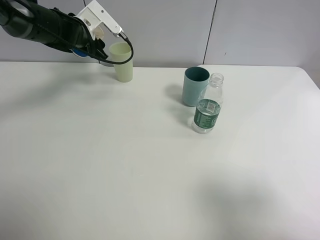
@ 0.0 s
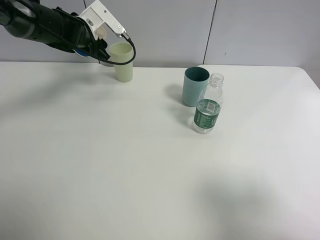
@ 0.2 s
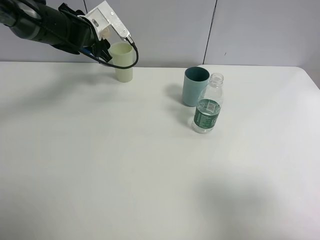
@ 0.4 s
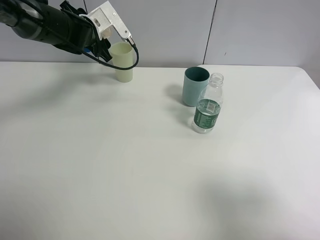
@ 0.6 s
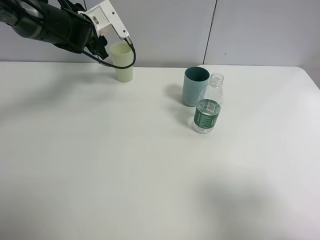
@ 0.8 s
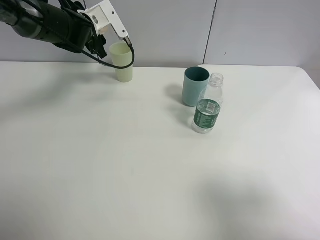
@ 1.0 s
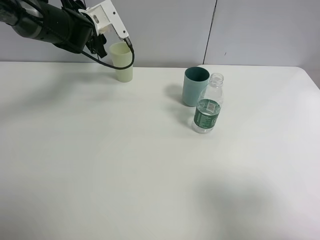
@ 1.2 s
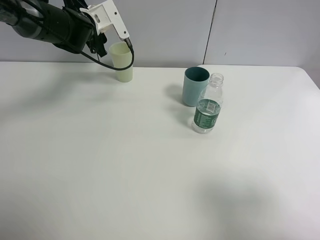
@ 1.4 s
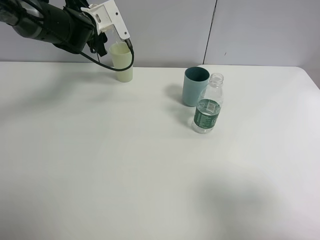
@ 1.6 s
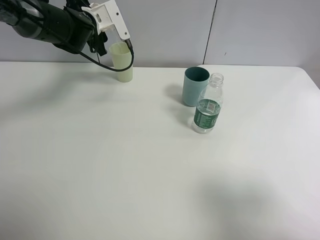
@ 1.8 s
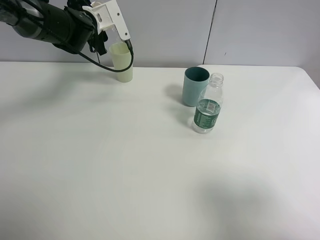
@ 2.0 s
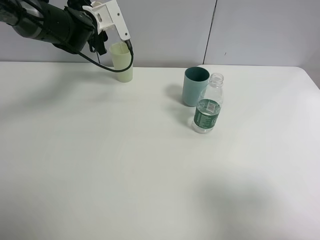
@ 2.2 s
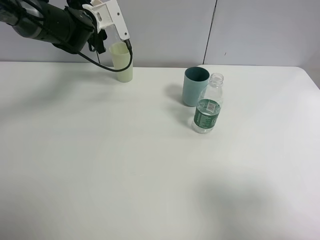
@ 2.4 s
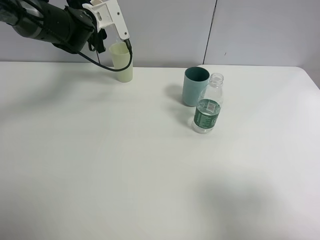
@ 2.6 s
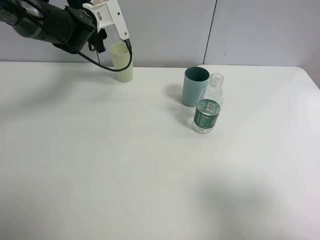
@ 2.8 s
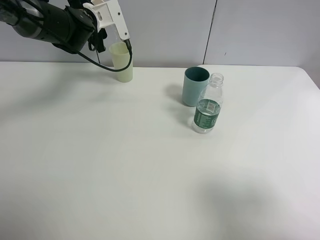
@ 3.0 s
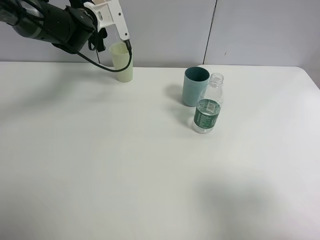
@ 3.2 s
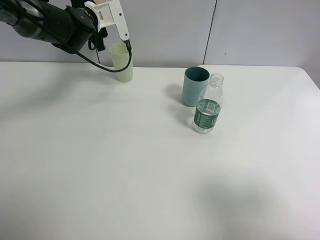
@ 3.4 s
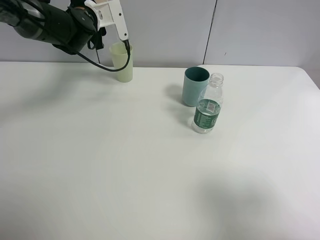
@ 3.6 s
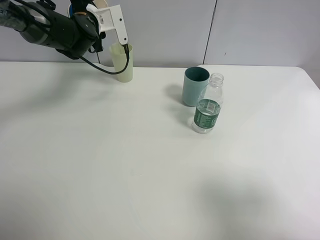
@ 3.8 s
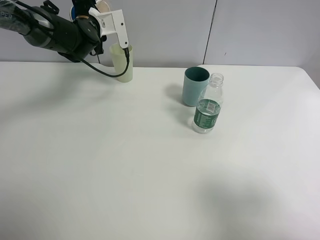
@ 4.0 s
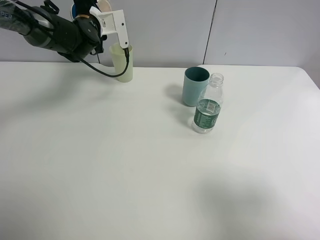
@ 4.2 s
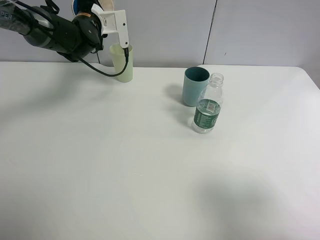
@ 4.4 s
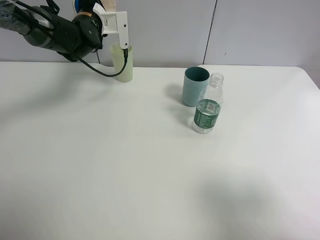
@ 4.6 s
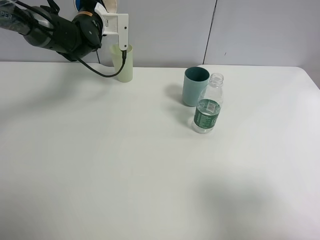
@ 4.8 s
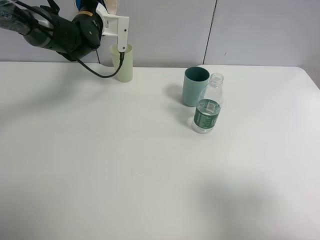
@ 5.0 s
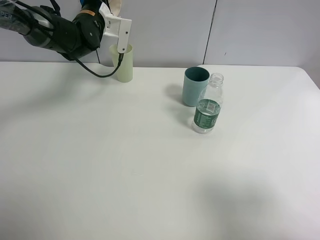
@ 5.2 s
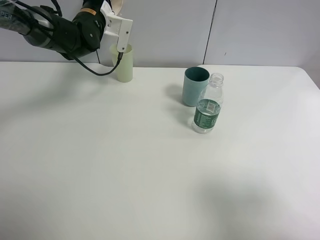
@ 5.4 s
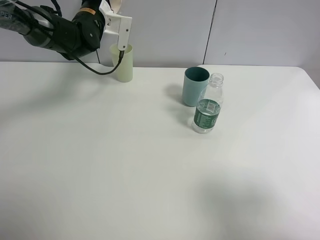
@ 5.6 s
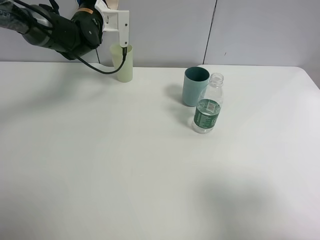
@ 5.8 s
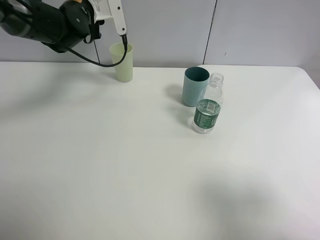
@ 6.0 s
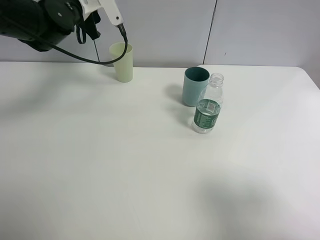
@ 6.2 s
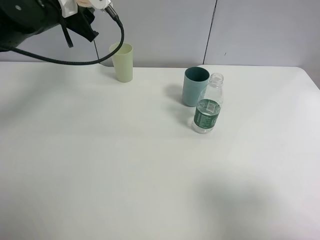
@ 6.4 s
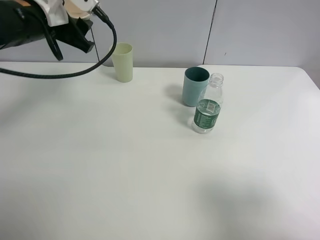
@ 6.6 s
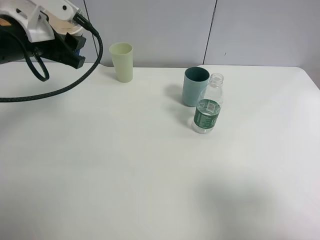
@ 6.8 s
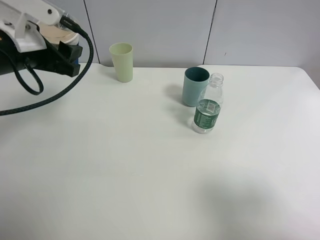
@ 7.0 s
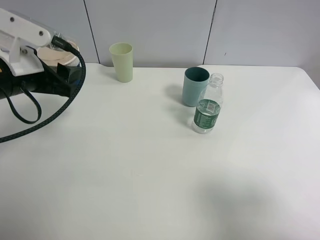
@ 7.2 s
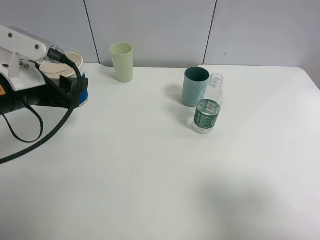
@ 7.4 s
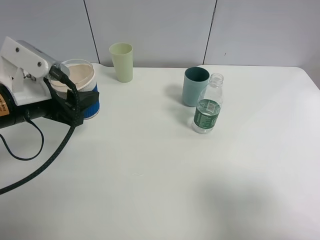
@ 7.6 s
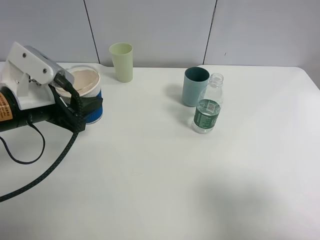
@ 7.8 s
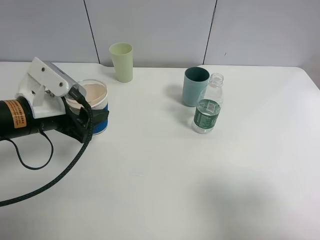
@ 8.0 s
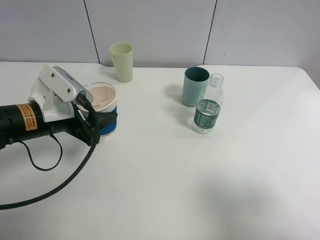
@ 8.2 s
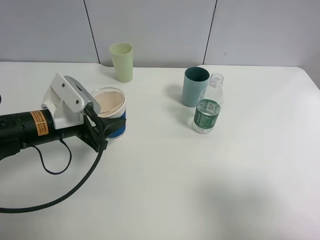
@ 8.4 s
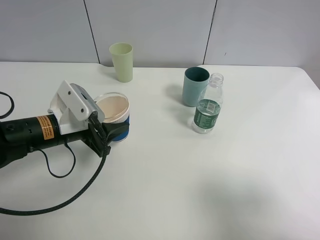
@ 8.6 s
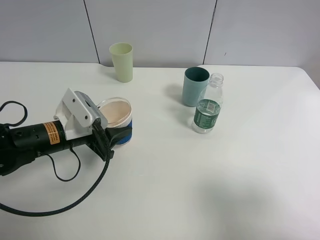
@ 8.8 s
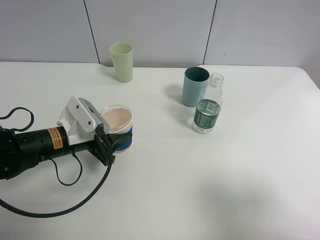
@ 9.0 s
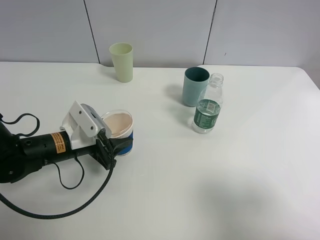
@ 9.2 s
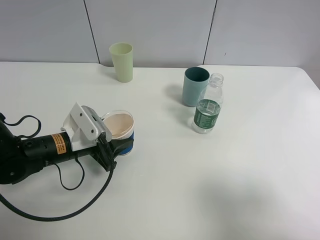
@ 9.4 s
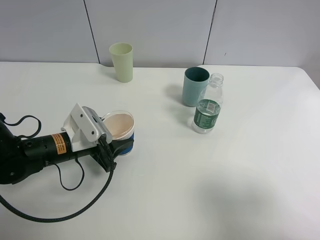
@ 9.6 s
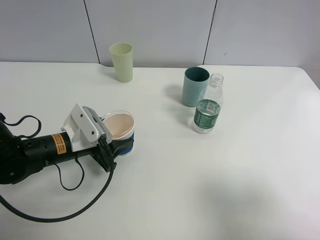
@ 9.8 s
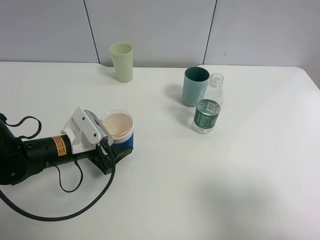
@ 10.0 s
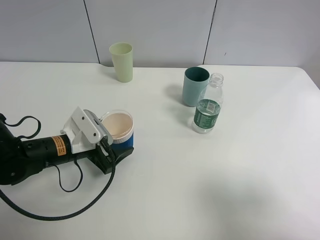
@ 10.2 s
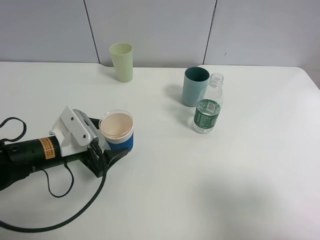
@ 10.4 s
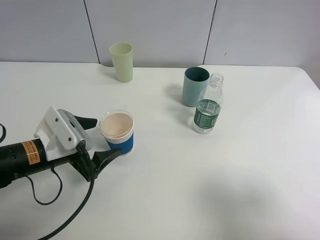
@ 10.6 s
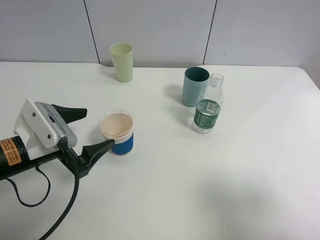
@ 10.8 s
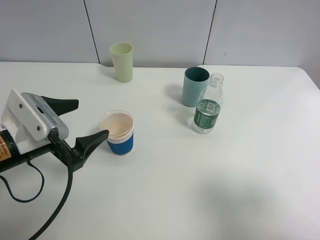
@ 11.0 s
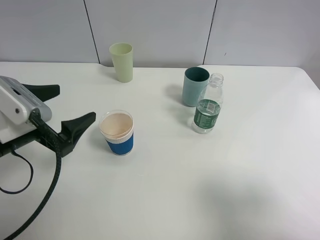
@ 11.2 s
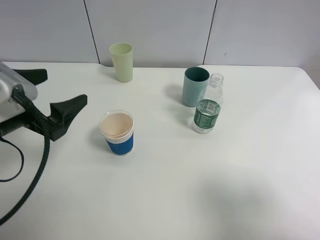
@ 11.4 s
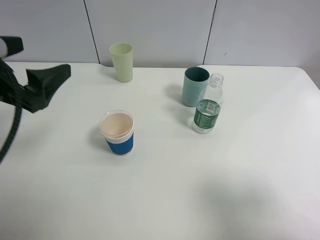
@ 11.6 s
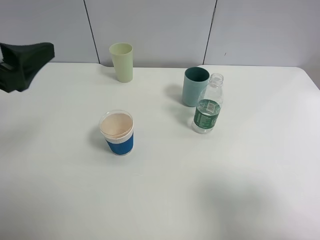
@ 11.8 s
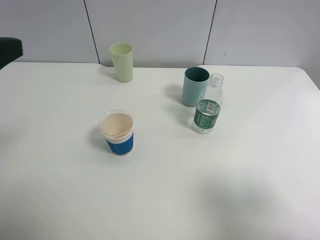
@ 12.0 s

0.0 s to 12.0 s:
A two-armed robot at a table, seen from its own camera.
Task of the whole recording: use a clamp to hold the bottle of the drink, pour the beverage into a random cup, then clamp the cup containing the drink and pour the drink into another random cup.
Step, 0.0 to 5.8 s: Pour water into the green plastic cup with left gripper.
Step, 6.0 to 10.4 s: Place the paper cup on the table with left gripper.
1.6 to 3.0 s: The grippers stay close to where they were, moving slightly.
3.0 to 4.4 s: The grippers make only small movements.
6.0 to 7.6 s: The left gripper goes approximately 25 cm backward.
7.6 to 9.0 s: The left gripper heads downward, covering some 10 cm.
9.0 to 10.4 s: The left gripper opens.
10.4 to 12.0 s: The left gripper is displaced upward by some 25 cm.

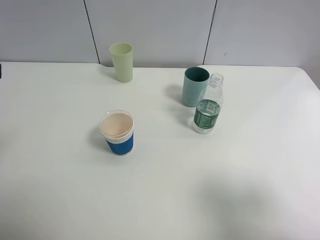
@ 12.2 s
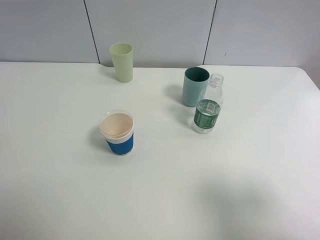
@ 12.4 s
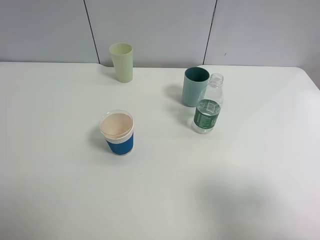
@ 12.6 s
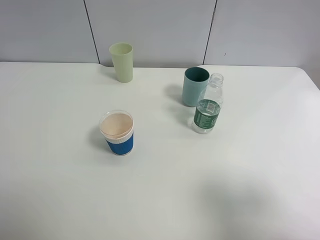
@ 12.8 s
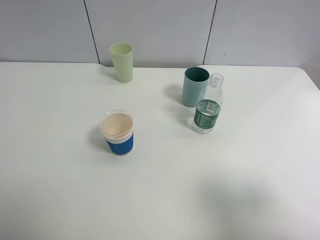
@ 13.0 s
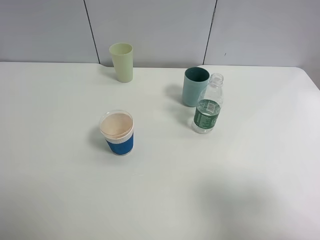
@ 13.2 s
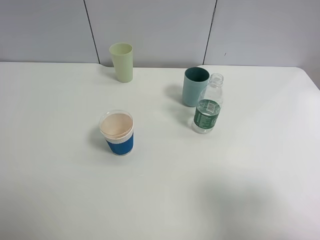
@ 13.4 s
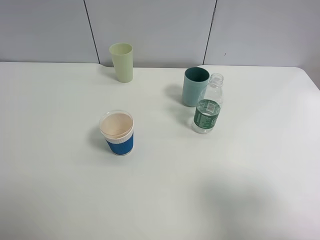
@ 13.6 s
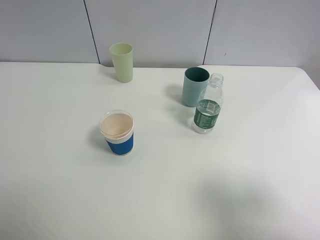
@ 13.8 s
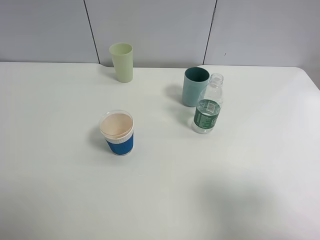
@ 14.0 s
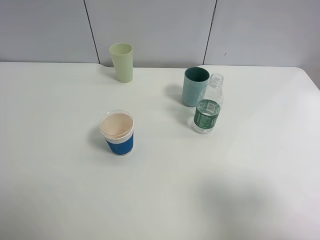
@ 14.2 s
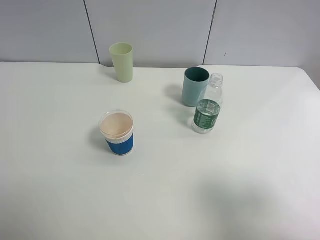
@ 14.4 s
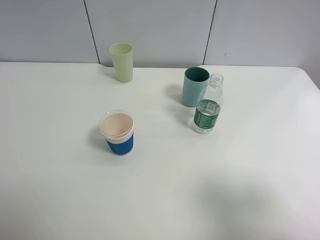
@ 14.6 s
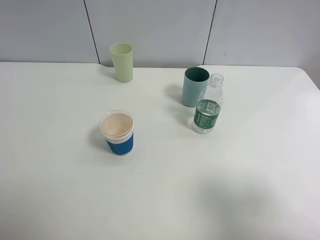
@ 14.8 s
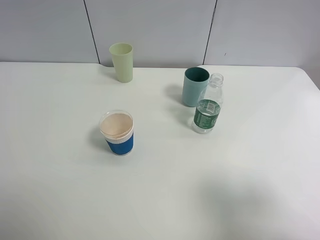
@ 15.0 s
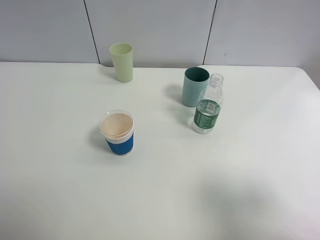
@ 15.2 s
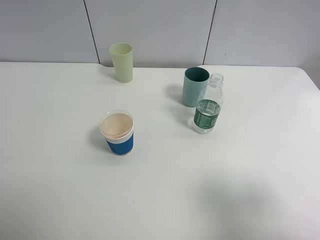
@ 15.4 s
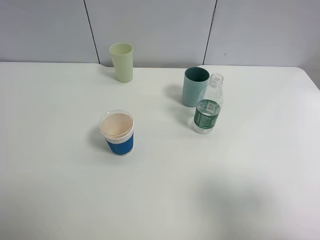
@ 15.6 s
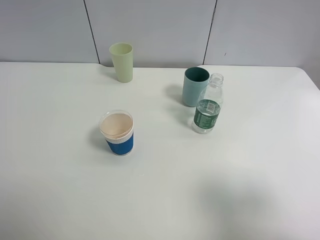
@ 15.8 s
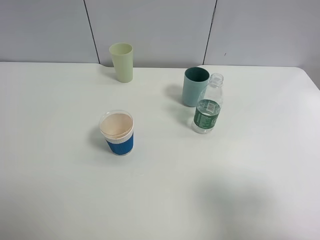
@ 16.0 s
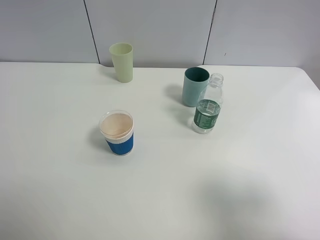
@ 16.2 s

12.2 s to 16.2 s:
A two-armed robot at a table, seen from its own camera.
Task of the whole recording: use a clamp to hold the bottle of the drink, pour the beverage into a random cup, then clamp the cup containing the drink and pour the drink into another random cup.
14.8 to 16.2 s: The two grippers keep their place.
